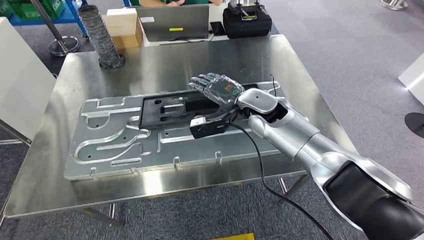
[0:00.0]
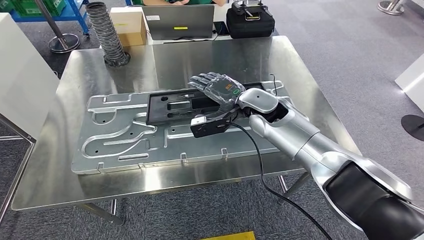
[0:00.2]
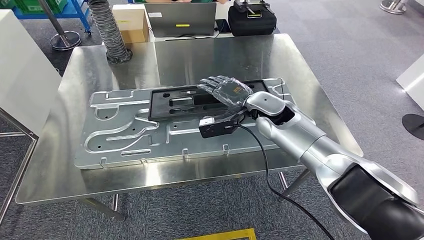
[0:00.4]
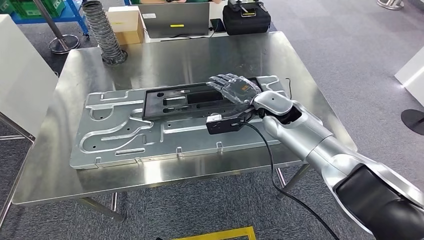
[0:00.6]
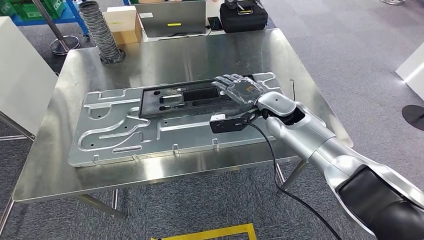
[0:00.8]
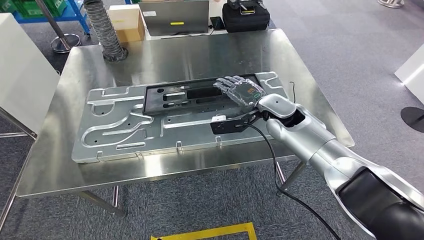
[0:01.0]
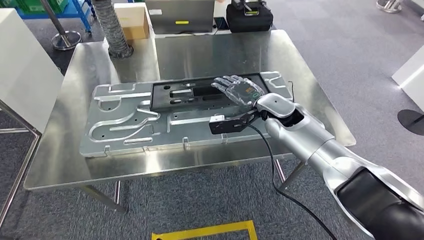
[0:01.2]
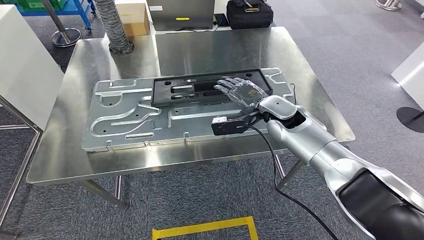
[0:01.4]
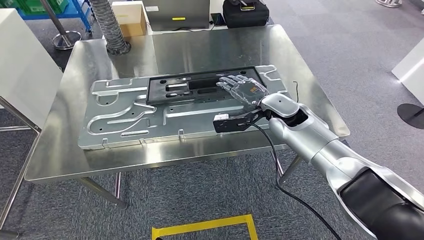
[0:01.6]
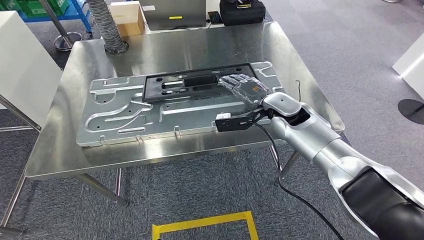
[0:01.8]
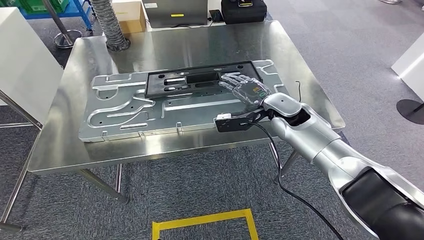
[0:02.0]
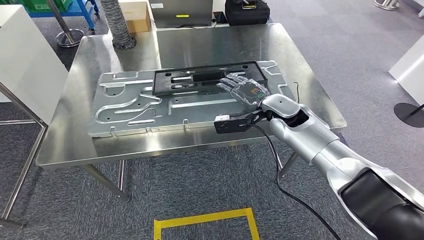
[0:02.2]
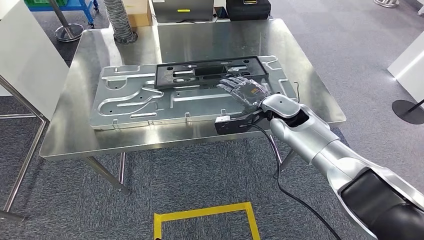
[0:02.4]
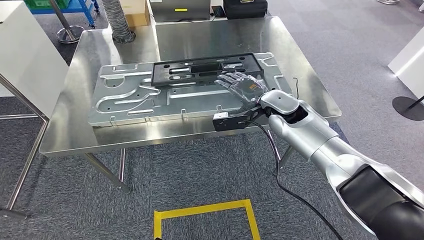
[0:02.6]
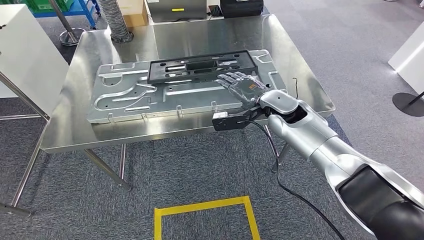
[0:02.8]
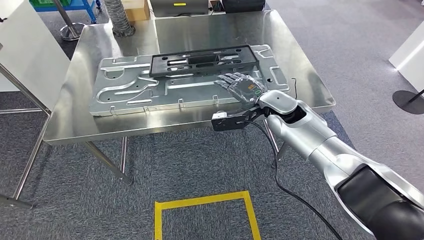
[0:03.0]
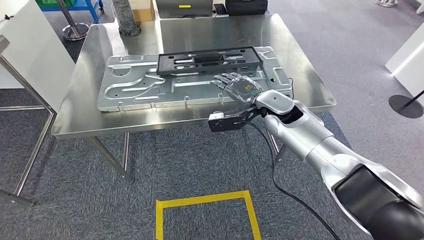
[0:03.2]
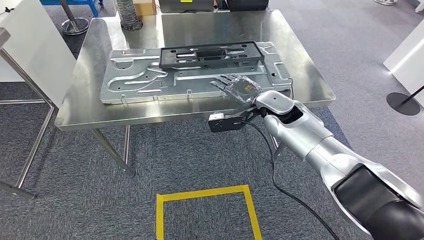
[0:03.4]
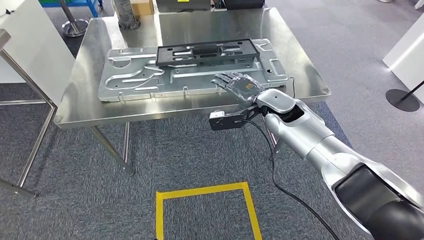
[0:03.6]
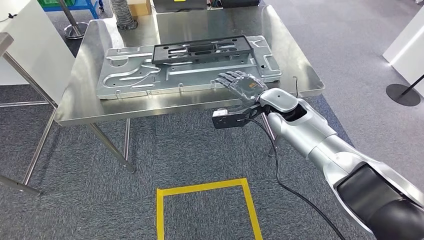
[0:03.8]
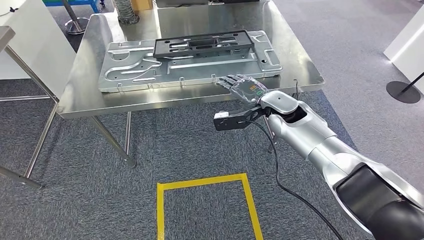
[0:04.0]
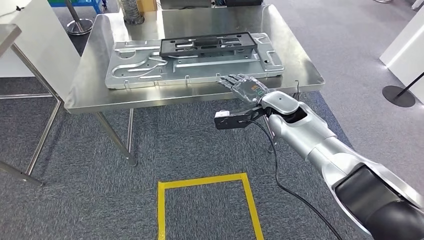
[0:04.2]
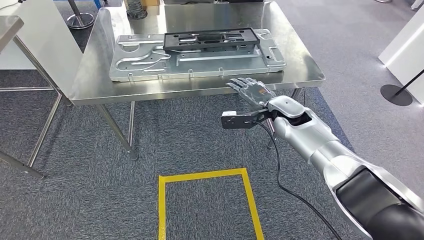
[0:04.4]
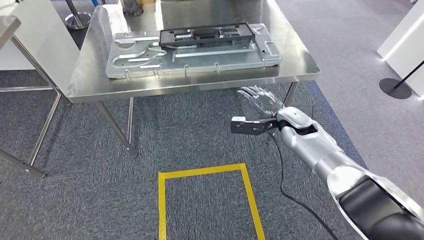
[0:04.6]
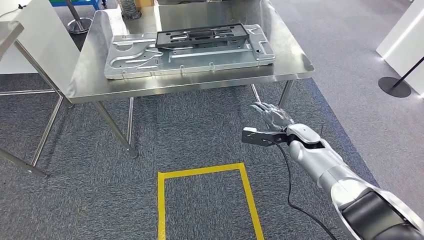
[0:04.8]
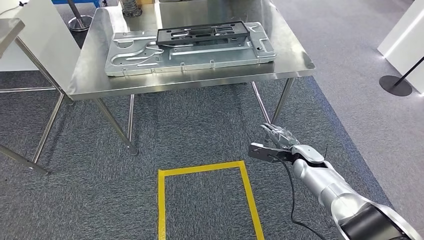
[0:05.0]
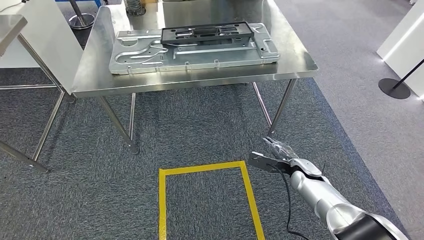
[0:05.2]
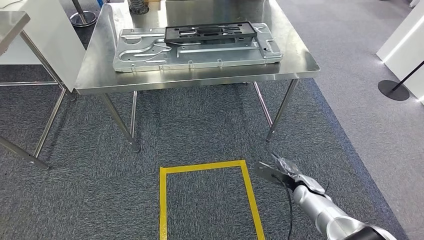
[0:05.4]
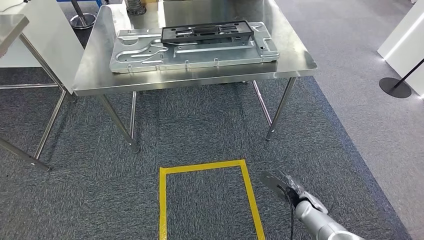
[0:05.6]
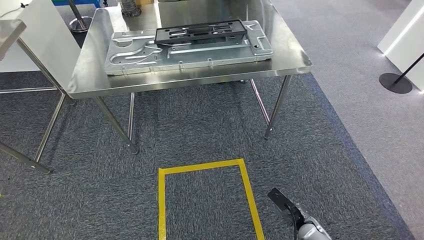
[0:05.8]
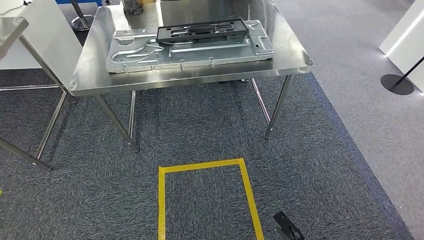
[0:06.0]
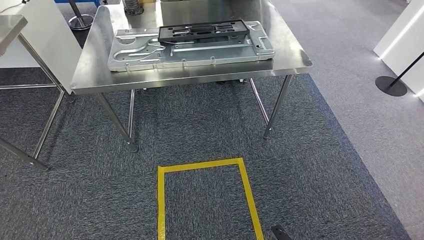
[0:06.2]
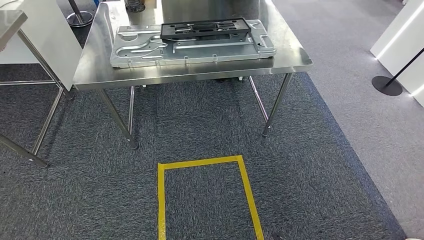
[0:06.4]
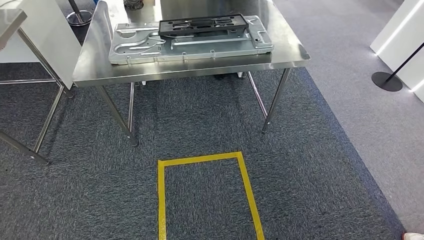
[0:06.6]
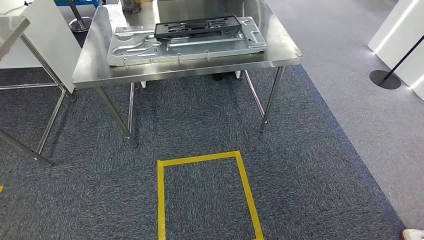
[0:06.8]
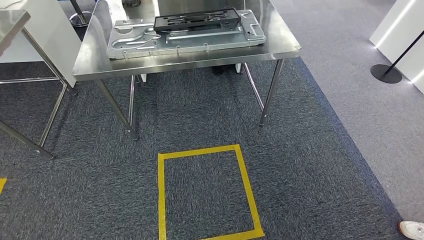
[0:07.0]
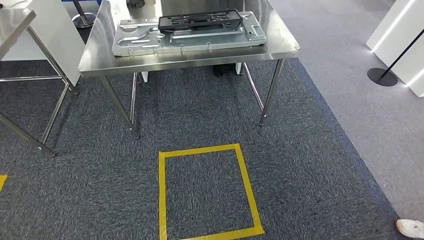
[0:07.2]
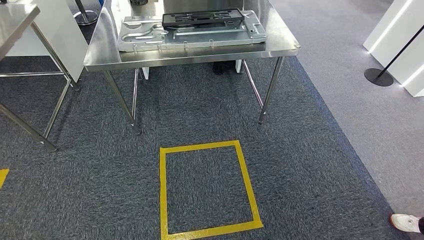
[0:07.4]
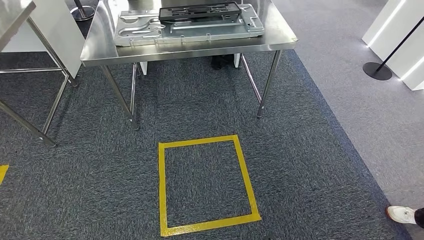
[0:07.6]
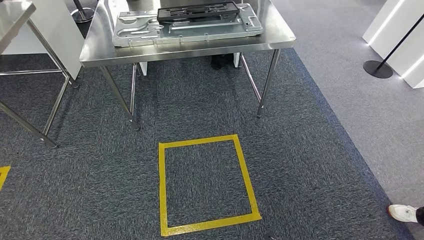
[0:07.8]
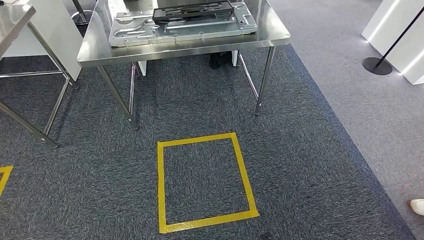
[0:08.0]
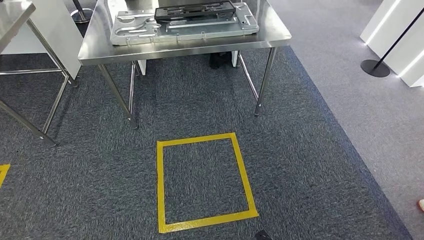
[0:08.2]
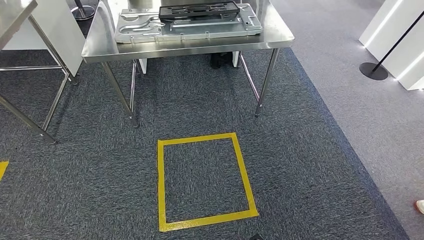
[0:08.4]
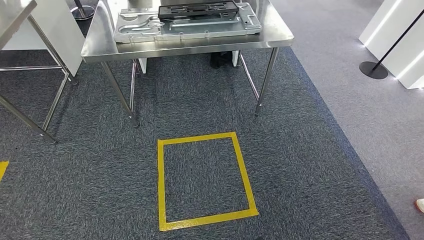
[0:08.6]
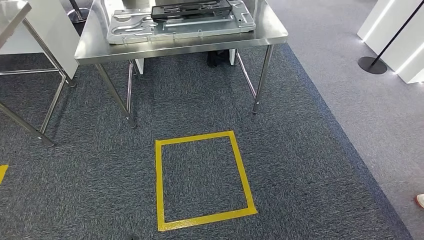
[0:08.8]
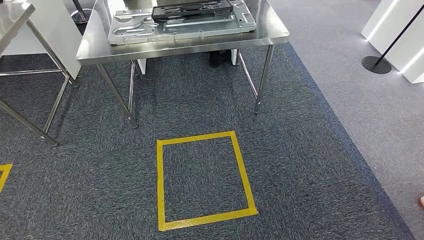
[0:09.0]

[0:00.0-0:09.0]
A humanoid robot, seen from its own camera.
Step, 0:02.4 to 0:09.0: Move to the initial position of the shelf.
0:07.6 to 0:09.0: There are only small adjustments of the hands.
